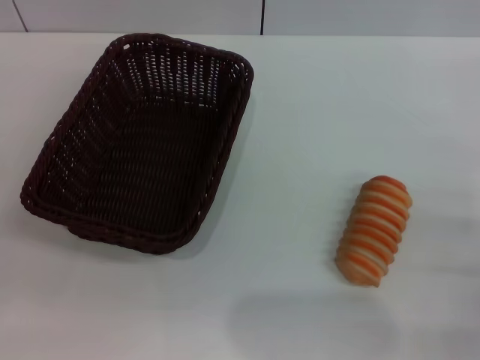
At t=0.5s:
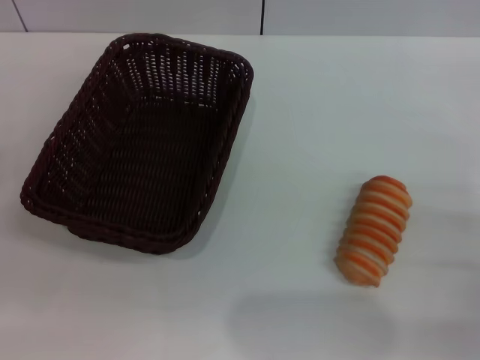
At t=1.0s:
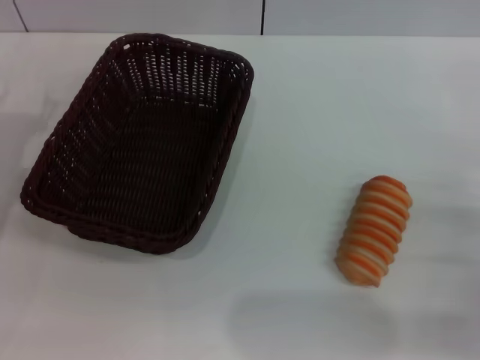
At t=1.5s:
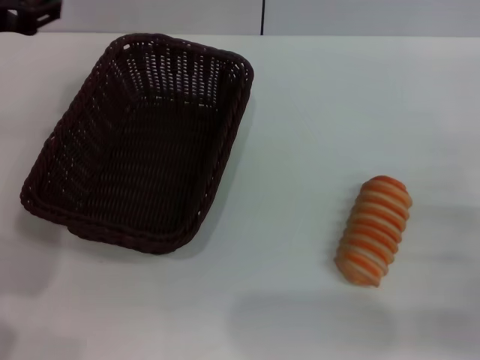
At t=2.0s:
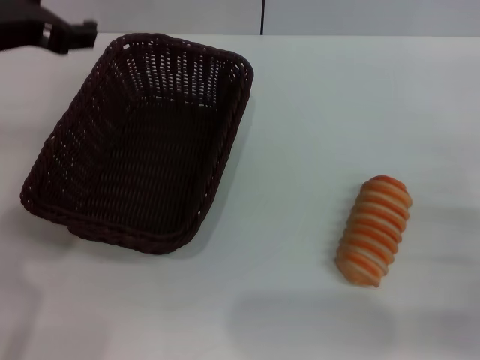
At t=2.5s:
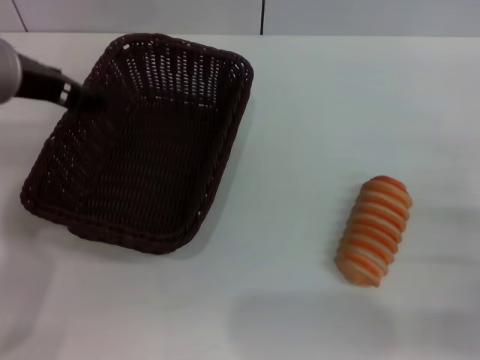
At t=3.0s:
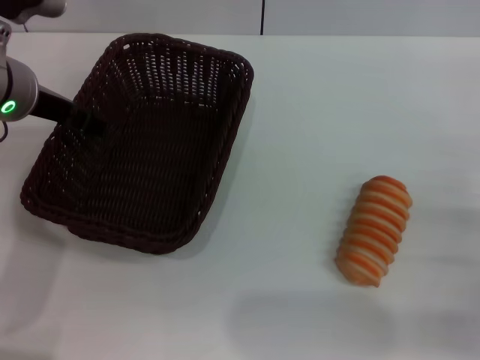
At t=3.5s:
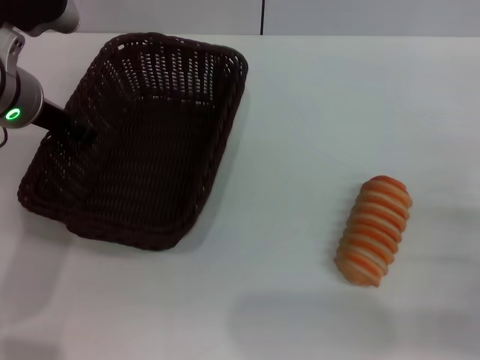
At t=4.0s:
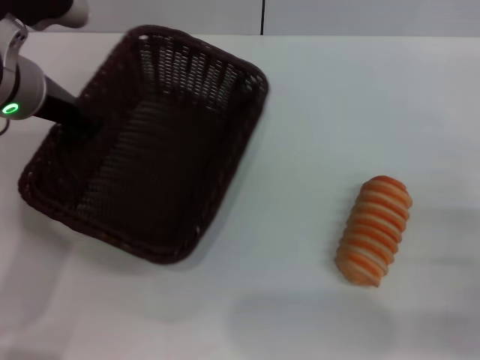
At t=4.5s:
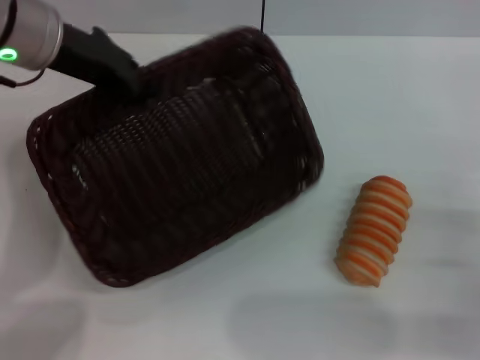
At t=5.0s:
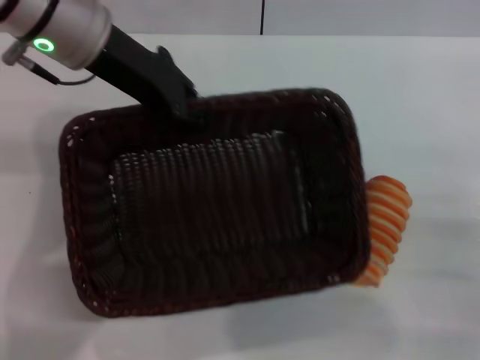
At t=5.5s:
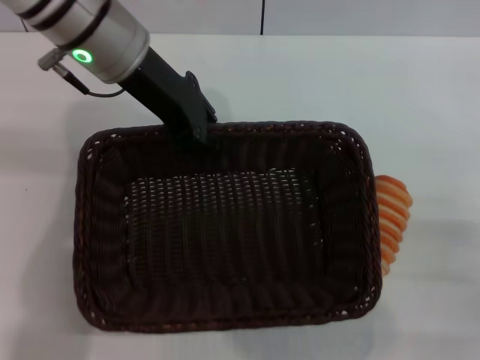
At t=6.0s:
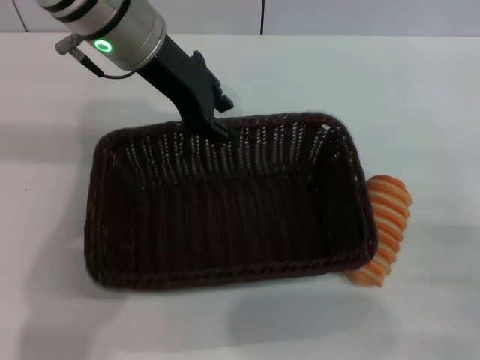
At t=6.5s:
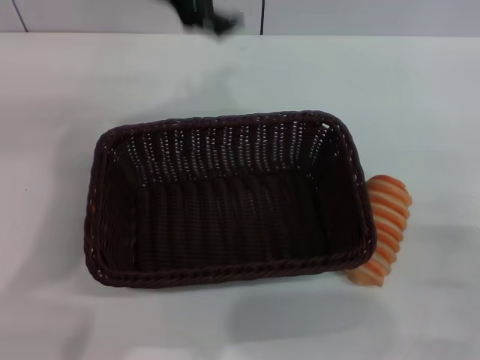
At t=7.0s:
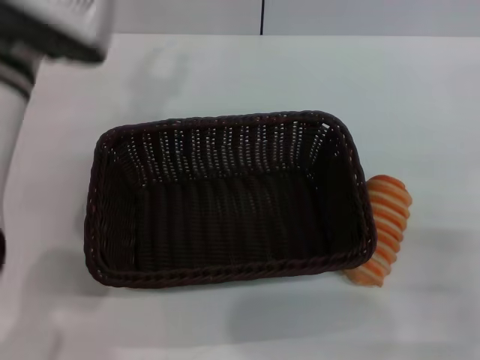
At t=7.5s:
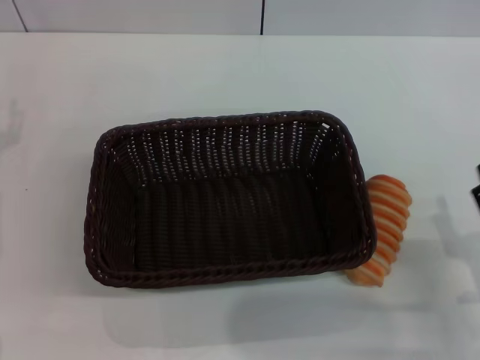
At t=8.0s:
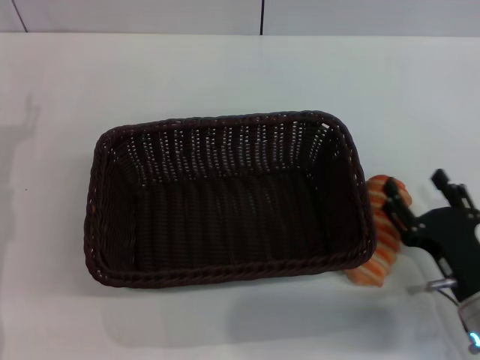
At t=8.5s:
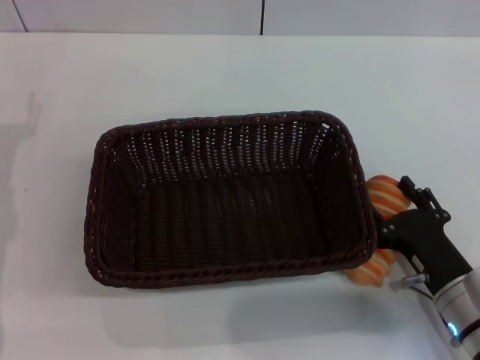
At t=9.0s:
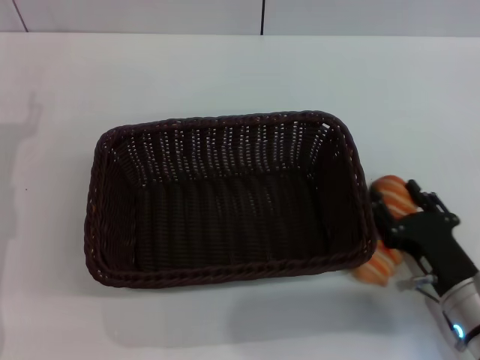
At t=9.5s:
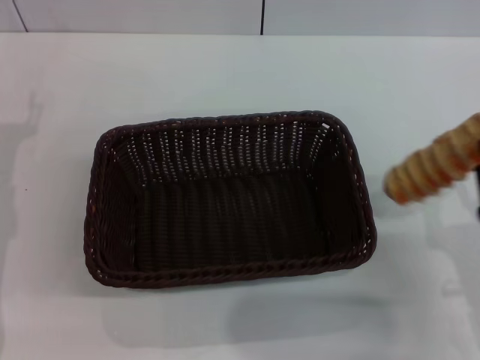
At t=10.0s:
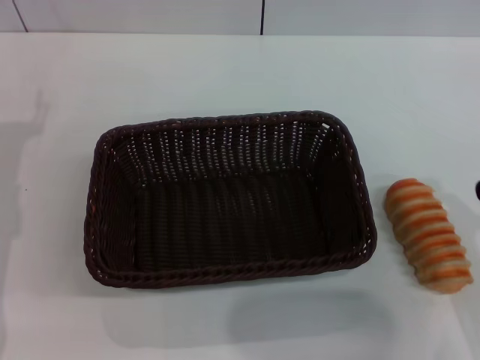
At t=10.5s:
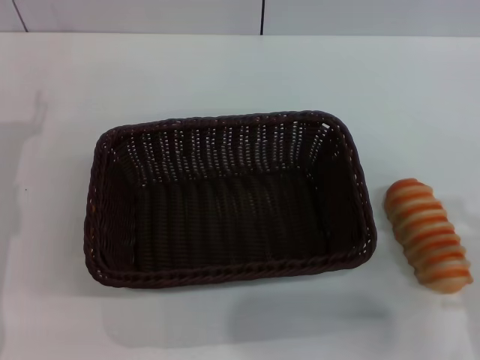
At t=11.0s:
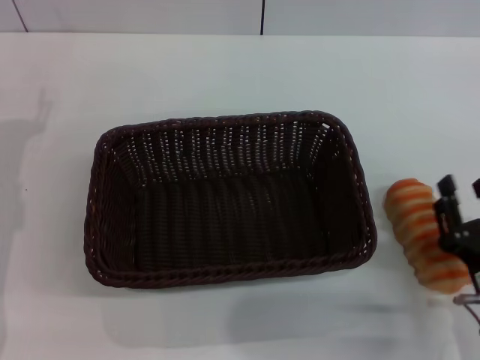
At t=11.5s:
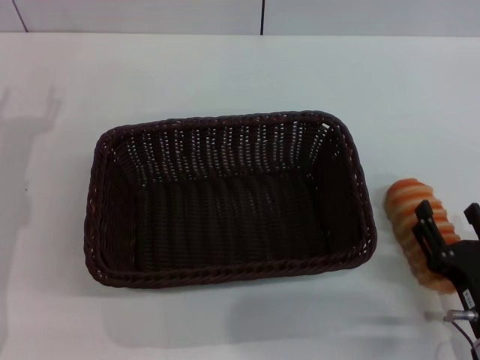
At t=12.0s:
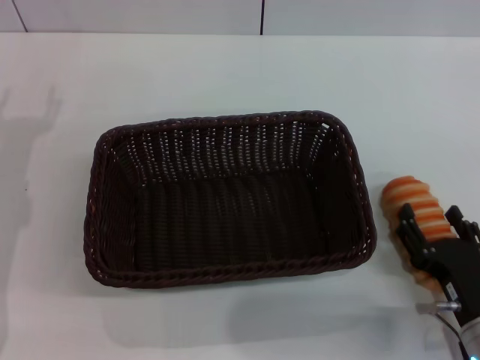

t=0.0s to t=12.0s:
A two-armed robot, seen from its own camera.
Step, t=0.0s to t=4.0s: Pick up the dark basket with the left gripper.
Step, t=4.5s to t=6.0s: Place the dark basket in the center of view with the left gripper.
t=0.0s to t=2.0s: The left gripper heads upward and to the right, covering approximately 25 cm.
t=2.0s to t=4.0s: The left gripper moves downward, some 5 cm, and closes.
t=4.0s to t=6.0s: The left gripper heads to the right, covering roughly 10 cm.
t=6.0s to t=8.0s: The left gripper goes some 25 cm to the left, downward and backward, and opens up. Meanwhile the right gripper travels to the left by some 5 cm.
t=8.0s to t=10.0s: The right gripper travels upward by about 5 cm, and closes up.
t=10.0s to t=12.0s: The right gripper travels downward by approximately 5 cm, and opens its fingers.

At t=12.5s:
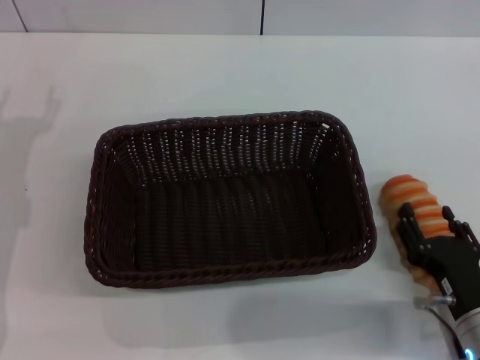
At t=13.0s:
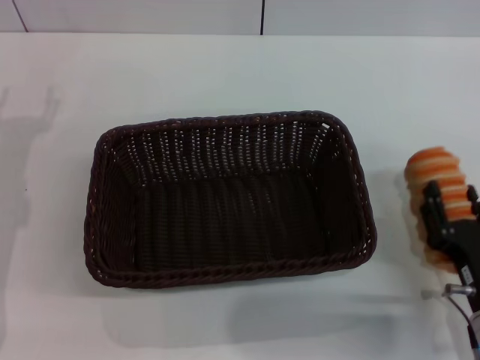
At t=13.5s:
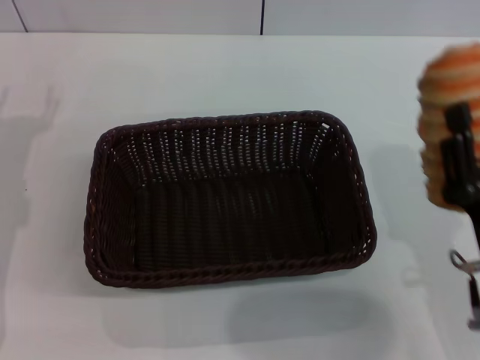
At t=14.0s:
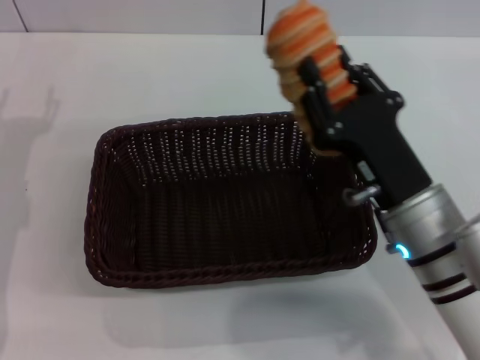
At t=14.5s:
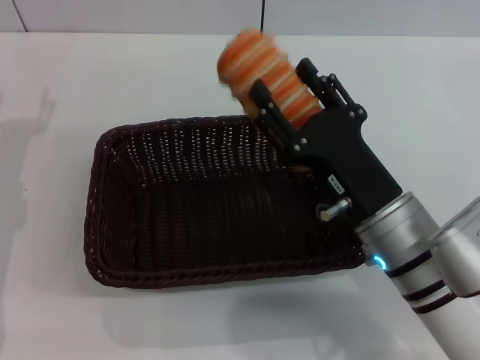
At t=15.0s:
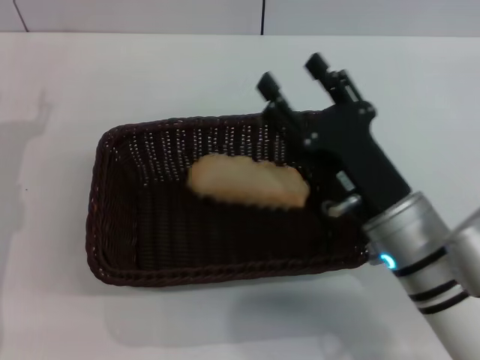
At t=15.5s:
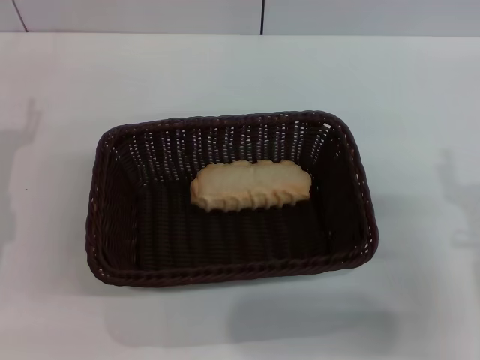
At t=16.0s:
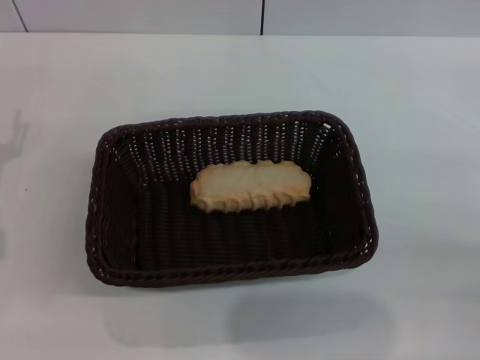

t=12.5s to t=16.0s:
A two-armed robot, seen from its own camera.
Step, t=13.5s to t=14.5s: Place the long bread into the dark basket with the right gripper.
t=12.5s to t=14.5s: The right gripper travels to the left, upward and forward by some 15 cm.
t=14.5s to t=16.0s: The right gripper shifts some 20 cm to the right and backward, and opens its fingers.
